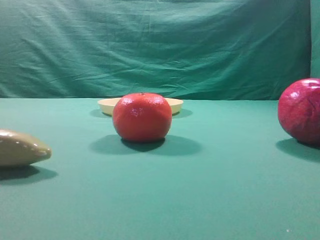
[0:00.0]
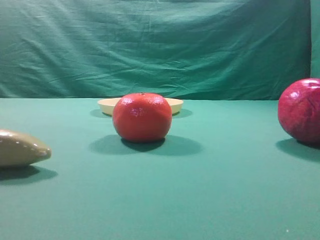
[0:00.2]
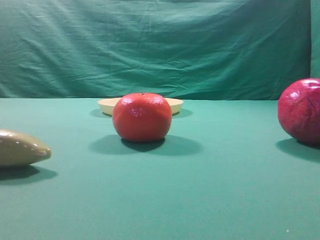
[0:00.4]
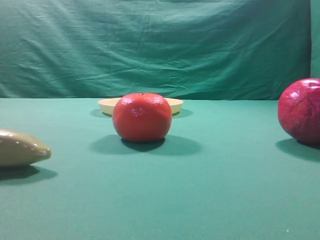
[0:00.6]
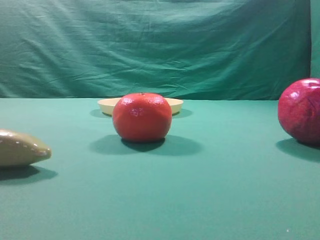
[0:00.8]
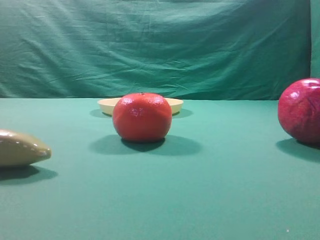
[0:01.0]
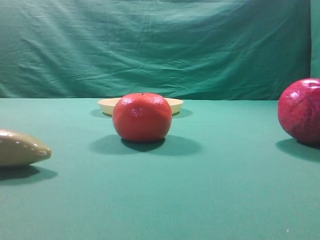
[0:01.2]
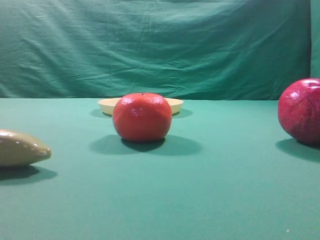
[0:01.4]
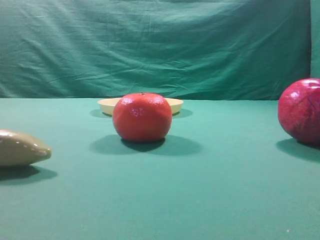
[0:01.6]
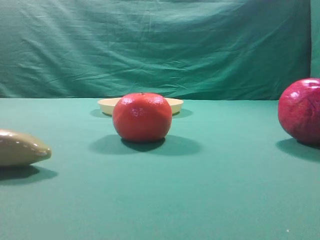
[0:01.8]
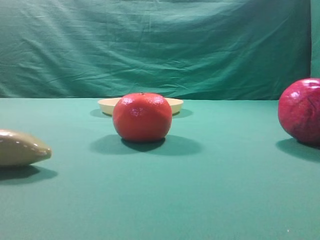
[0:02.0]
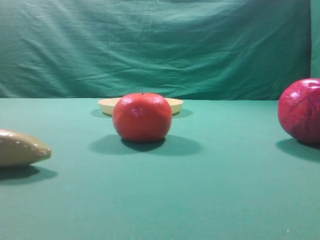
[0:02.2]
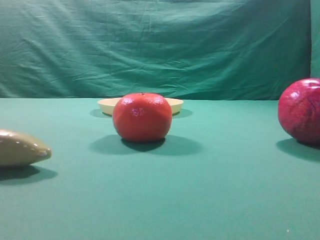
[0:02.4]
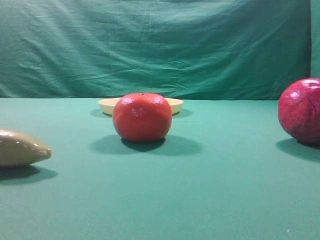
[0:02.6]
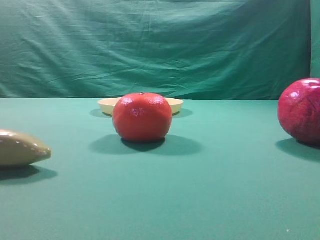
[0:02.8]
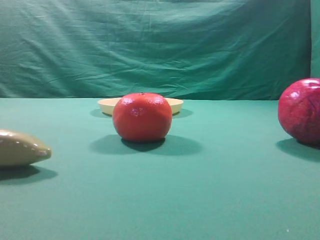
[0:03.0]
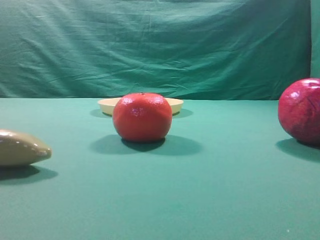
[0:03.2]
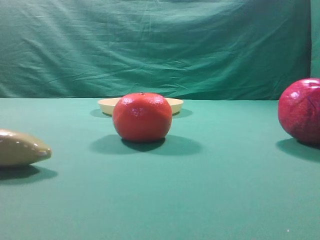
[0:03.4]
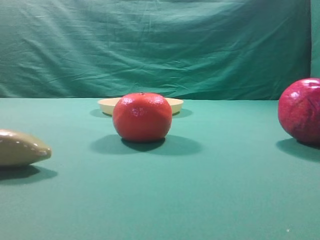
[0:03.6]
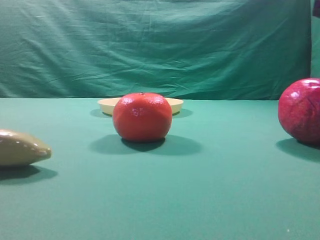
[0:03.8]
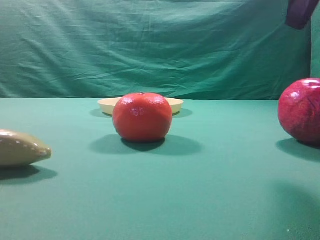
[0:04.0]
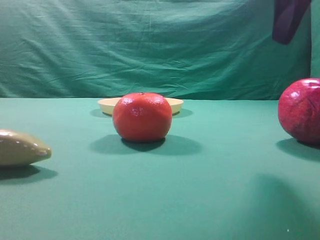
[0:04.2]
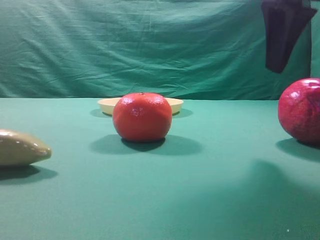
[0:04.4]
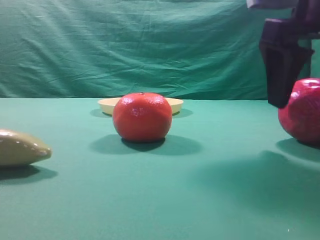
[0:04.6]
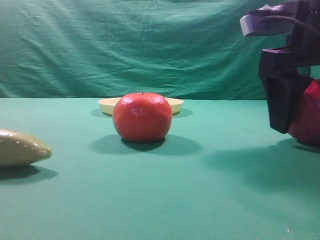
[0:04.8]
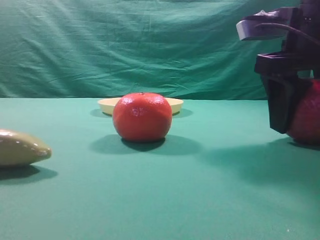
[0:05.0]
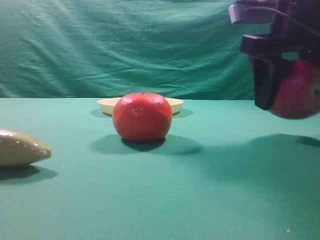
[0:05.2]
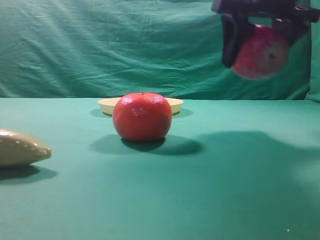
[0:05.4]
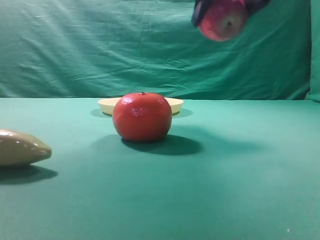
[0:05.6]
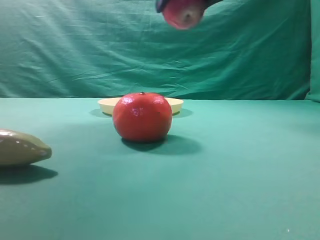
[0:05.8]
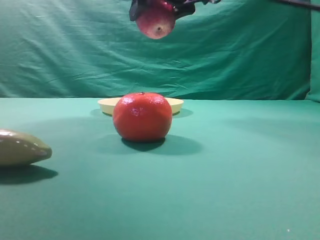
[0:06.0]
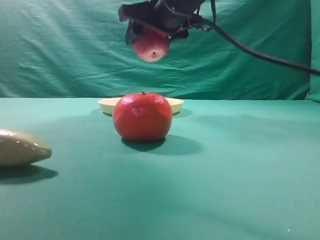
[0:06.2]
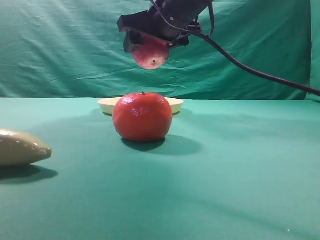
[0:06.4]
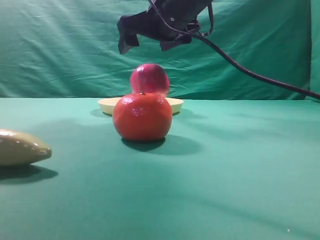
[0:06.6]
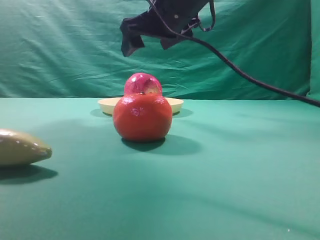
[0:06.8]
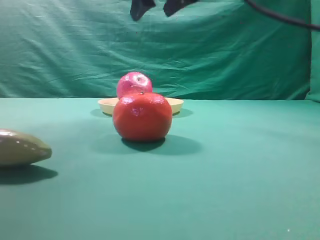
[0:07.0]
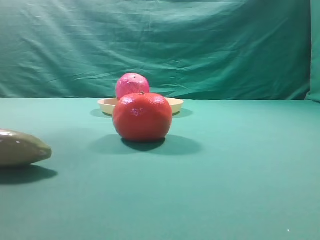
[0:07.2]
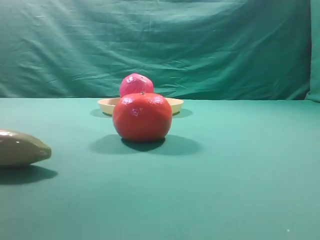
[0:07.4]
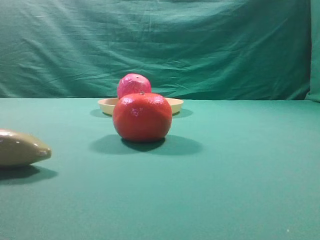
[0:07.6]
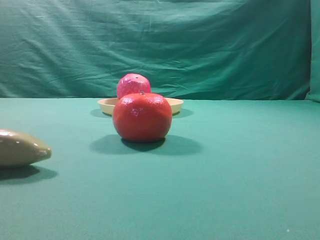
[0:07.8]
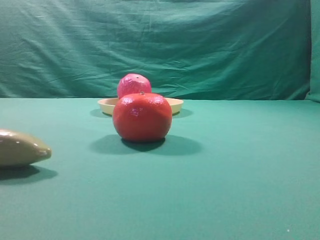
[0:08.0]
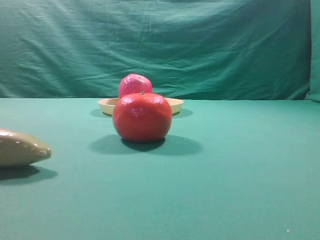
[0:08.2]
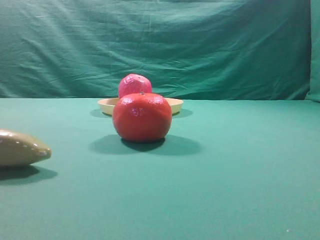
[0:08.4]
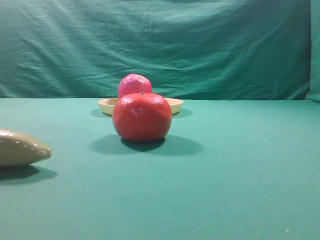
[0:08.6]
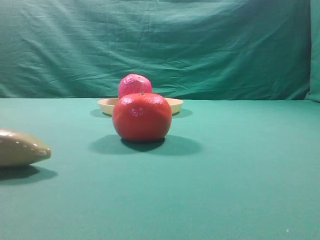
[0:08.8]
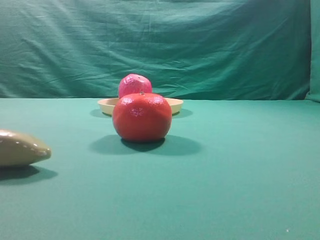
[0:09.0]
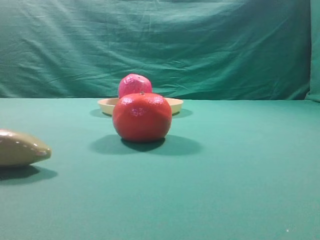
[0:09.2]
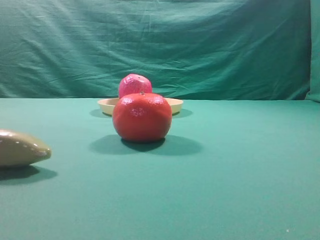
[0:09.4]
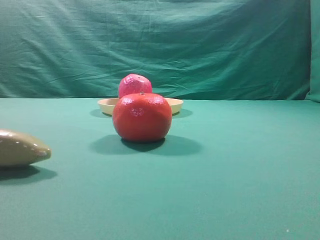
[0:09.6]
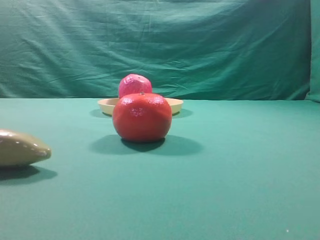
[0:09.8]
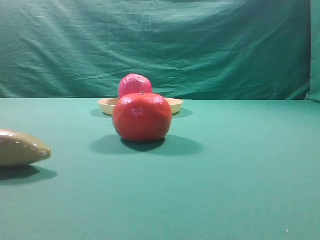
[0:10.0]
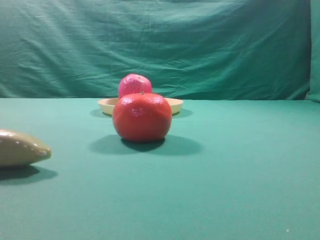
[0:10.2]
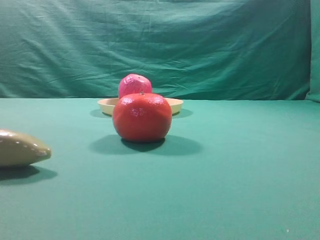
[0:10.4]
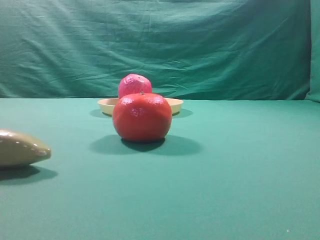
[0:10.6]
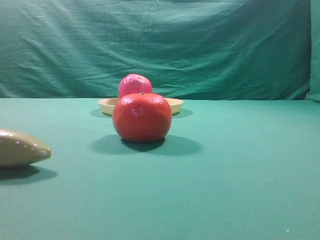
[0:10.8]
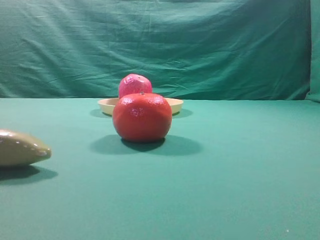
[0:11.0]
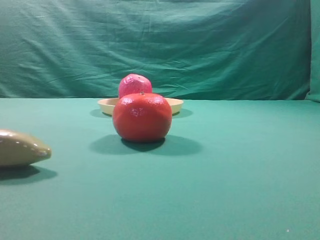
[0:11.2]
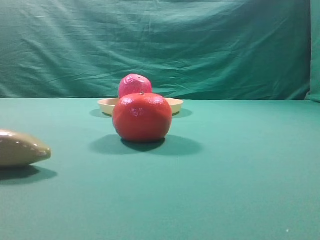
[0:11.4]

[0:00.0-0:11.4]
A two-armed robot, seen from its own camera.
Task of the whole recording: grasp the apple and place it into the yellow plate.
Step, 0:00.0 to 0:05.2: Grasp the fruit that can keep the doctor away.
Step, 0:05.4 to 0:07.0: Place the picked object into the yellow plate.

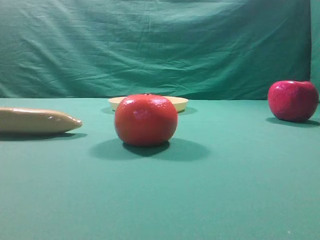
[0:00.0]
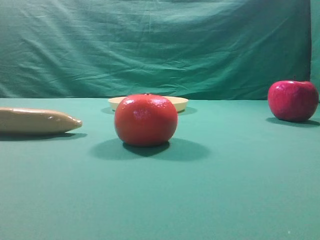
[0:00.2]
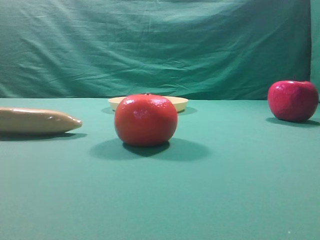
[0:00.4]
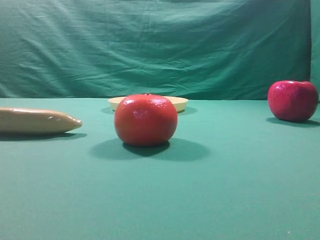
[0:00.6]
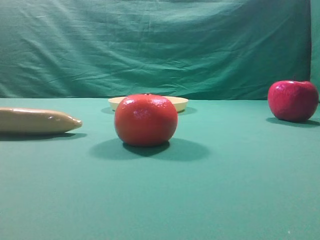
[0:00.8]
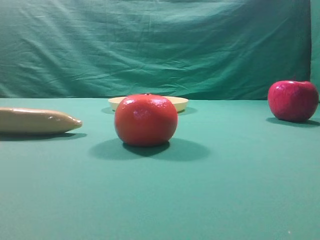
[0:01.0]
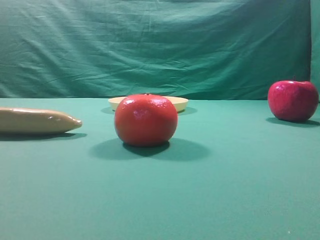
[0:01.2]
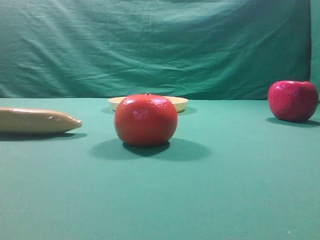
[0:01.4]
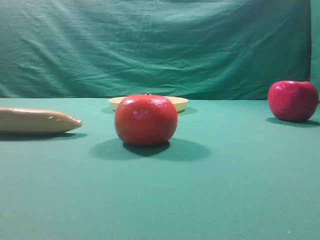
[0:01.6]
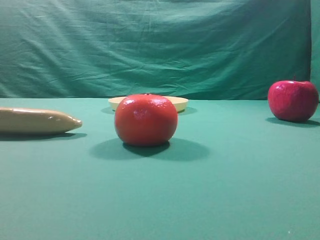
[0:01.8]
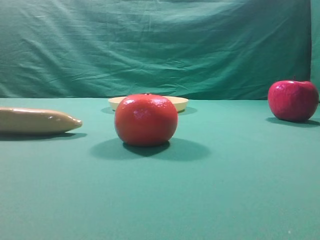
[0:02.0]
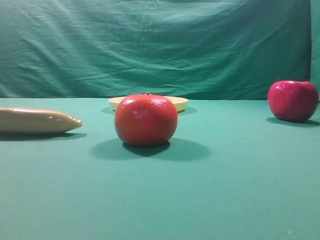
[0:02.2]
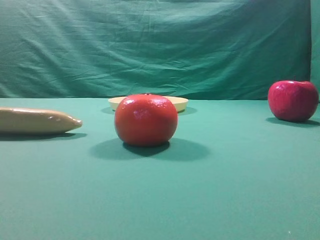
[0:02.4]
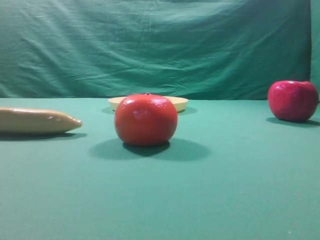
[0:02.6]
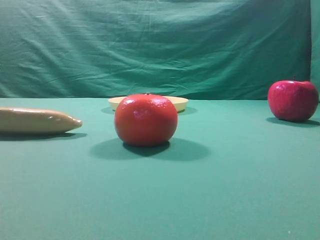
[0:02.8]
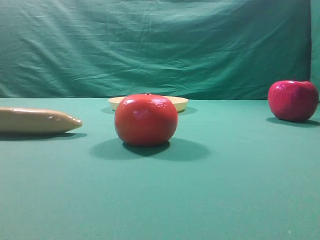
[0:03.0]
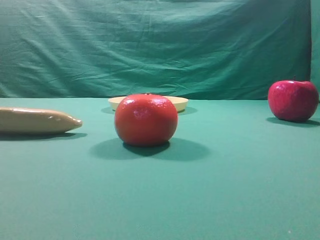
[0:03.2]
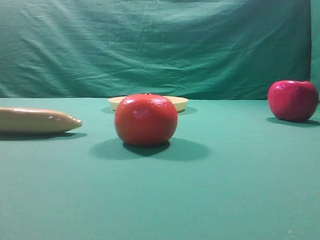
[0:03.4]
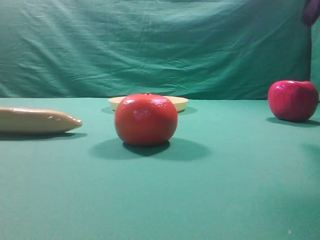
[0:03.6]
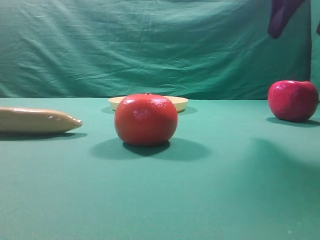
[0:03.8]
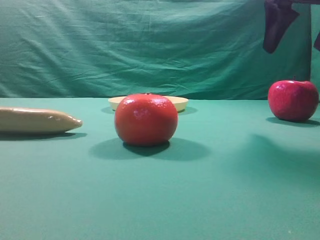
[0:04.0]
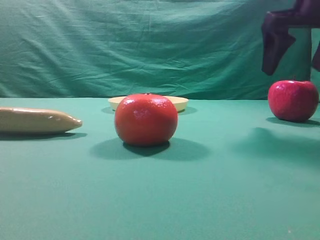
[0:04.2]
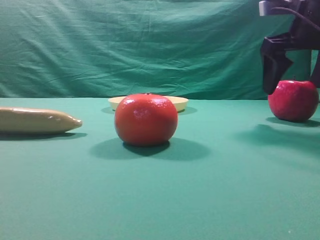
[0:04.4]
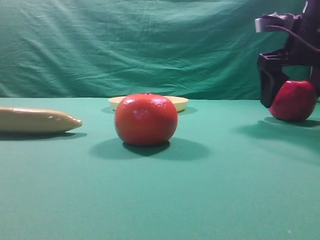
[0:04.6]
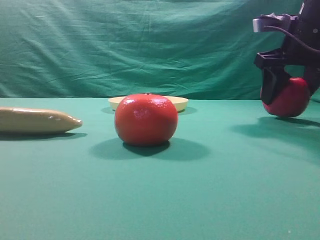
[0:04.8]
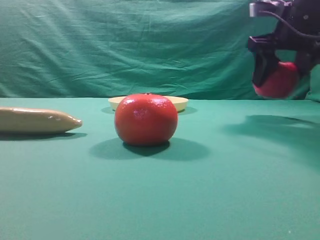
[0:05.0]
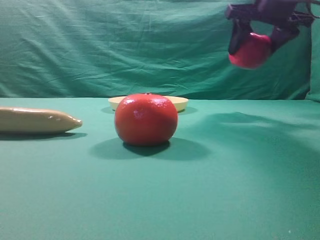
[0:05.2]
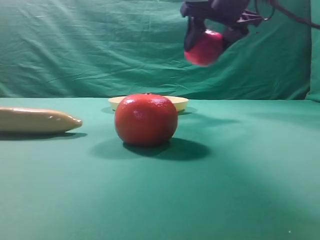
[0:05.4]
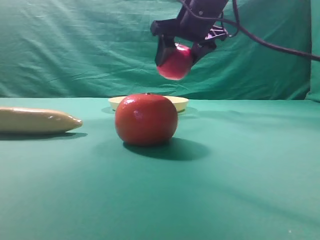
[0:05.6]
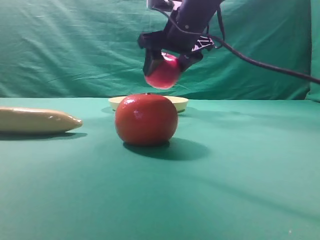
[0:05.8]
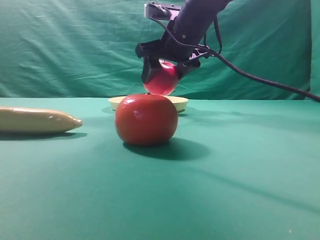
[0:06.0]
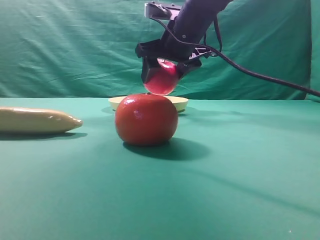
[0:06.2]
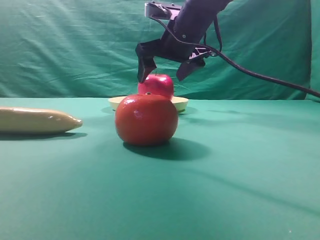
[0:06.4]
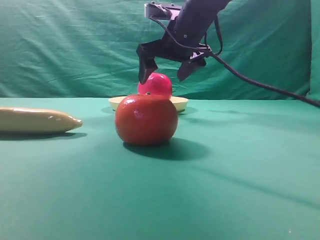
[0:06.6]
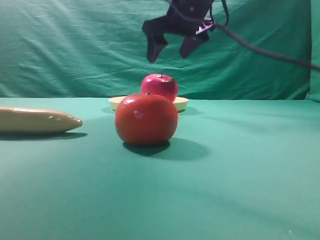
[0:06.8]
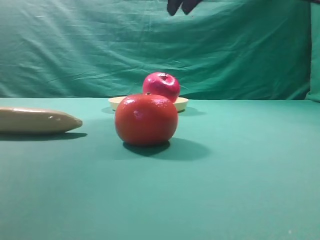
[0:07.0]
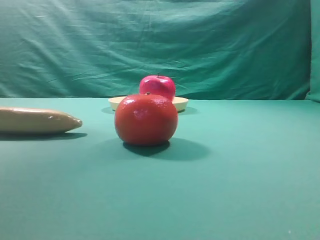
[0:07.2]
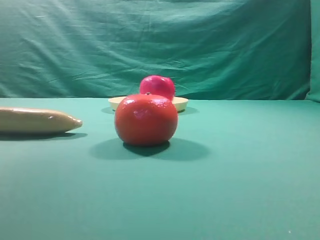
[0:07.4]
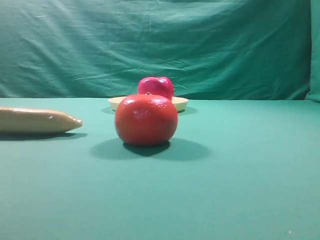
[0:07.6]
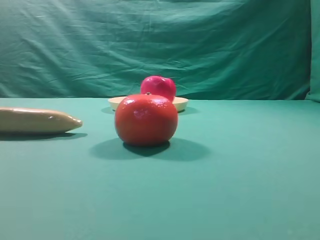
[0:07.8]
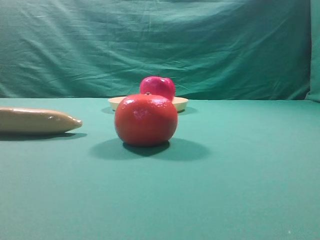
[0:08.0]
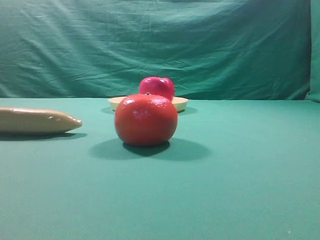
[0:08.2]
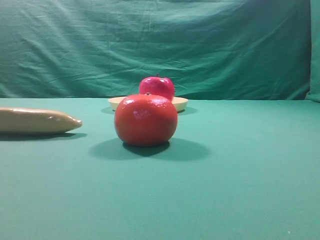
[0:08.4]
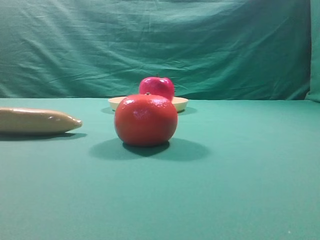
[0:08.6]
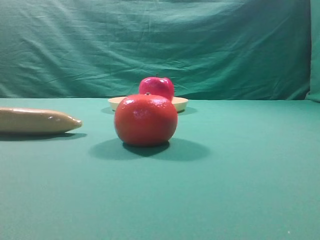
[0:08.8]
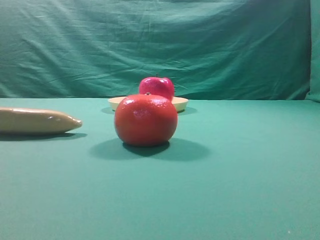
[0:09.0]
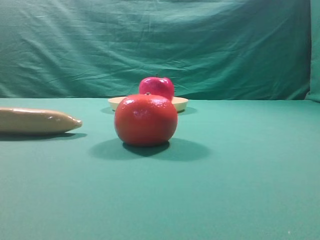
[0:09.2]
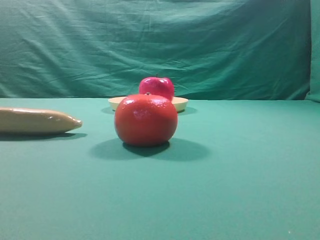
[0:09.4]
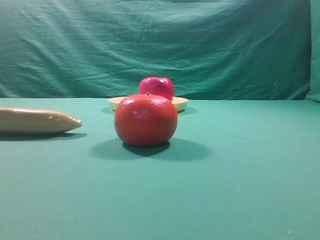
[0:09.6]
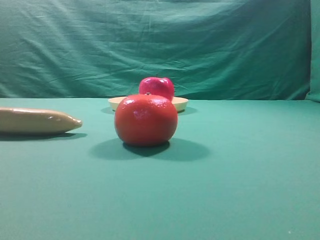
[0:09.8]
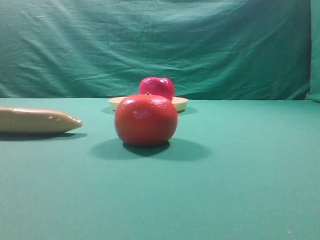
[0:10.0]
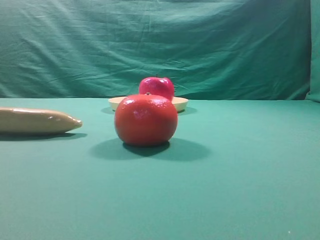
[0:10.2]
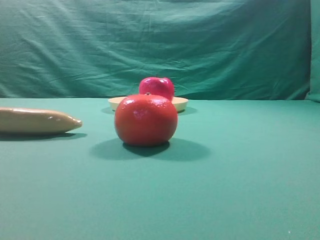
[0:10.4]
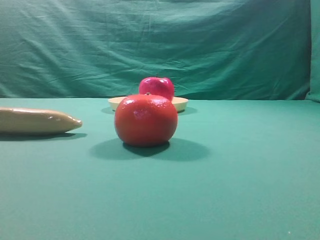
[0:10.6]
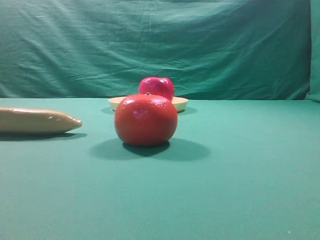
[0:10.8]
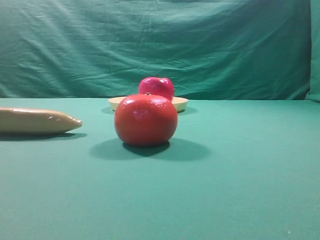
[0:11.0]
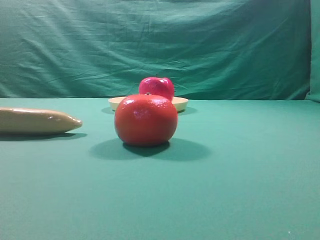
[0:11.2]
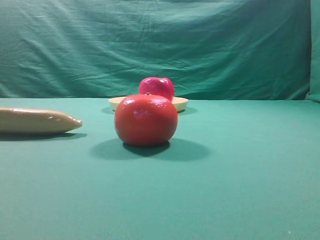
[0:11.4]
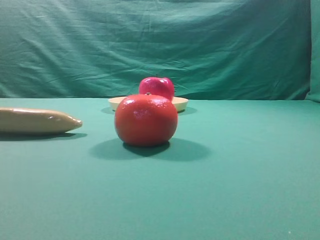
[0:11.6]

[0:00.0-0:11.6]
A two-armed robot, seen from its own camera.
Task of the whole recording: grasp the apple and place it into the yellow plate.
Step, 0:00.0 to 0:04.8: Grasp the fruit that can keep the doctor away.
Step, 0:05.0 to 0:06.6: Place the picked object into the yellow plate.
